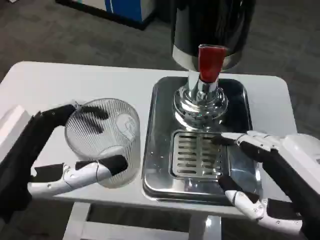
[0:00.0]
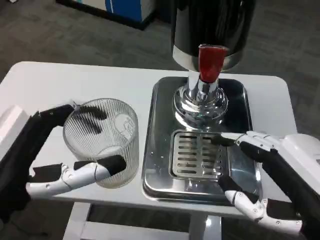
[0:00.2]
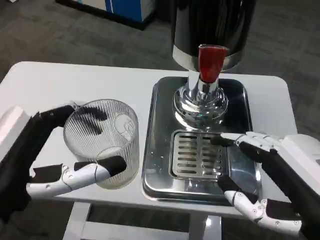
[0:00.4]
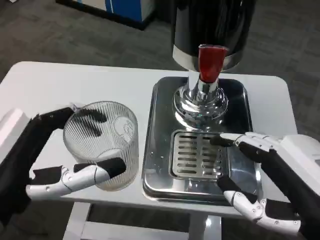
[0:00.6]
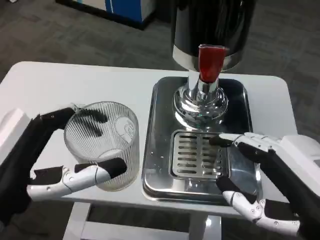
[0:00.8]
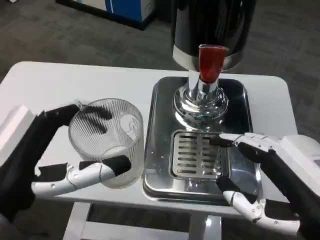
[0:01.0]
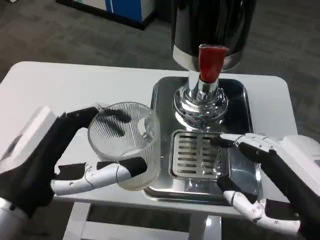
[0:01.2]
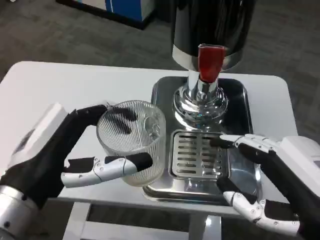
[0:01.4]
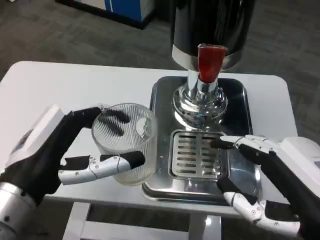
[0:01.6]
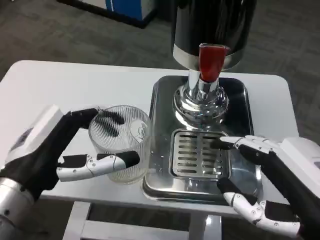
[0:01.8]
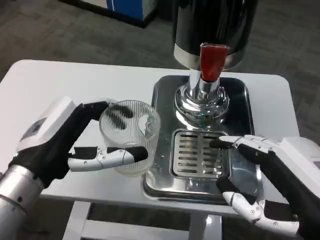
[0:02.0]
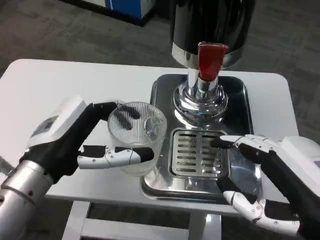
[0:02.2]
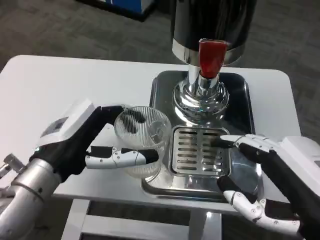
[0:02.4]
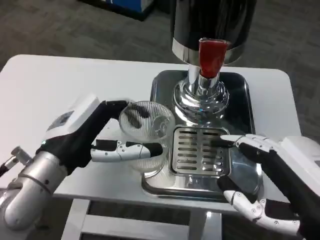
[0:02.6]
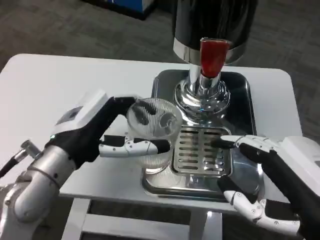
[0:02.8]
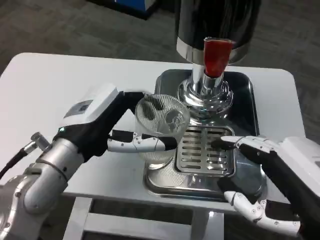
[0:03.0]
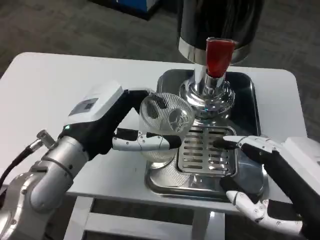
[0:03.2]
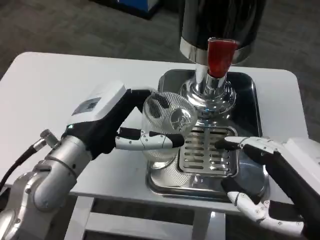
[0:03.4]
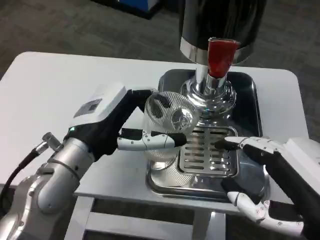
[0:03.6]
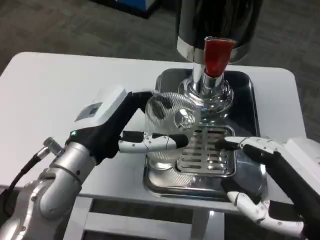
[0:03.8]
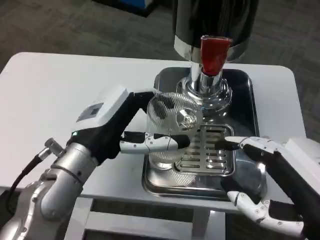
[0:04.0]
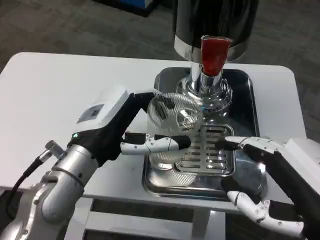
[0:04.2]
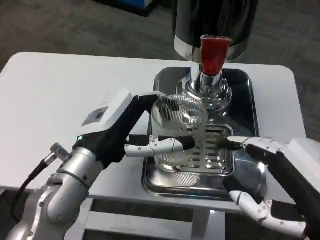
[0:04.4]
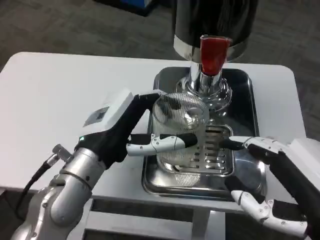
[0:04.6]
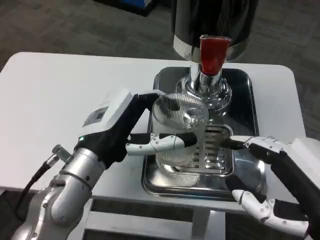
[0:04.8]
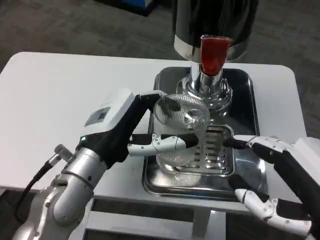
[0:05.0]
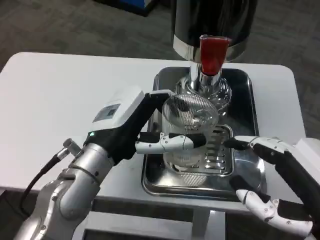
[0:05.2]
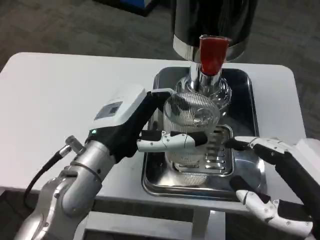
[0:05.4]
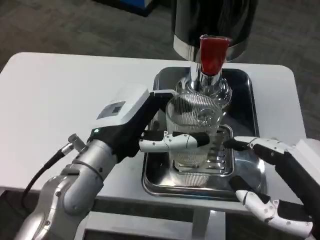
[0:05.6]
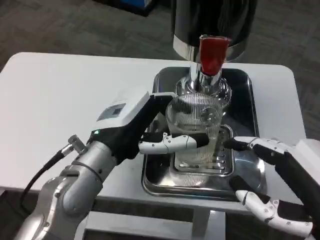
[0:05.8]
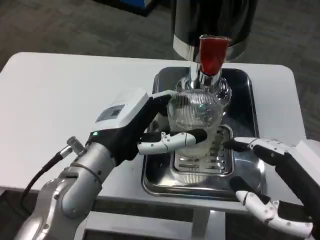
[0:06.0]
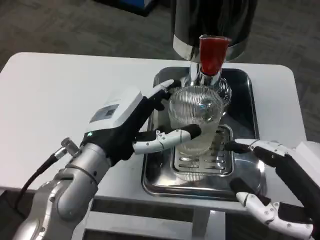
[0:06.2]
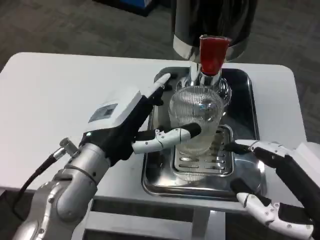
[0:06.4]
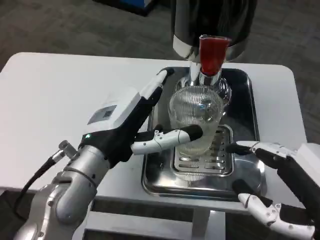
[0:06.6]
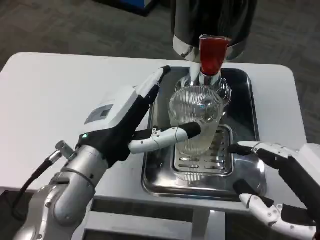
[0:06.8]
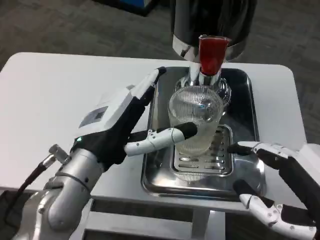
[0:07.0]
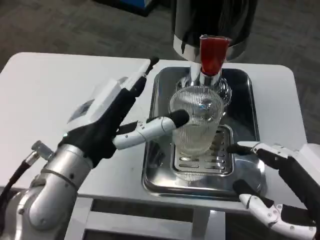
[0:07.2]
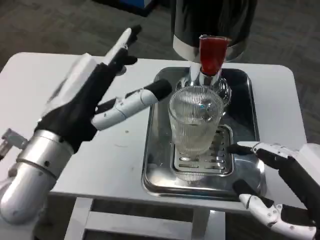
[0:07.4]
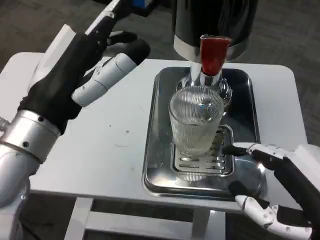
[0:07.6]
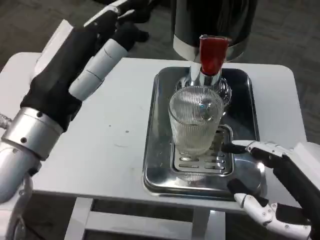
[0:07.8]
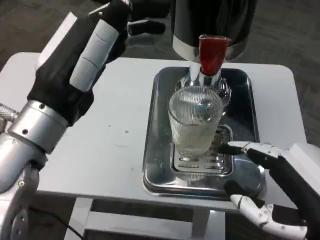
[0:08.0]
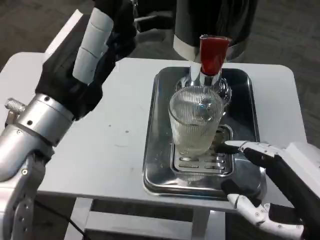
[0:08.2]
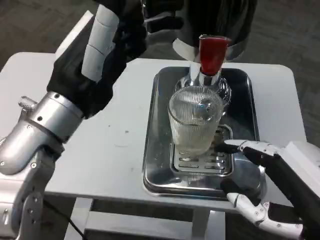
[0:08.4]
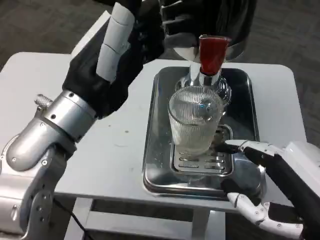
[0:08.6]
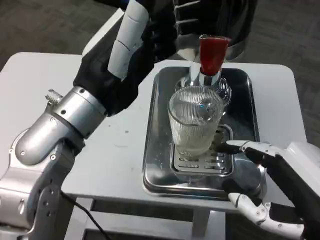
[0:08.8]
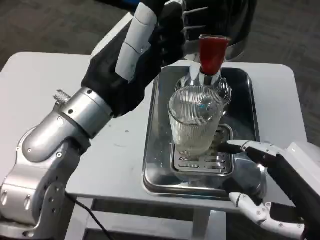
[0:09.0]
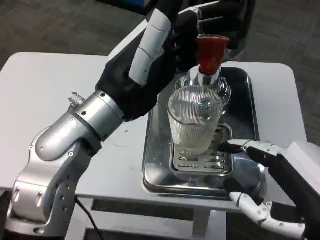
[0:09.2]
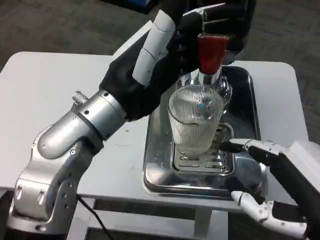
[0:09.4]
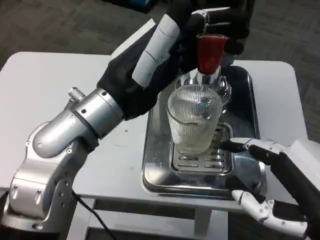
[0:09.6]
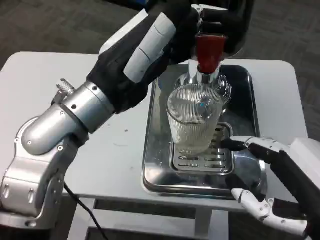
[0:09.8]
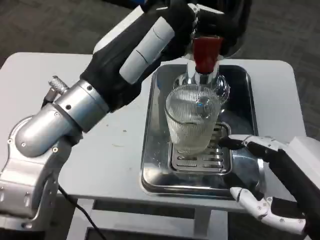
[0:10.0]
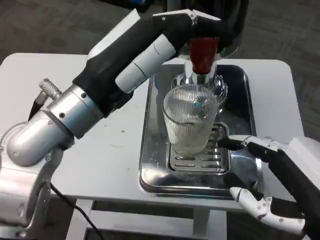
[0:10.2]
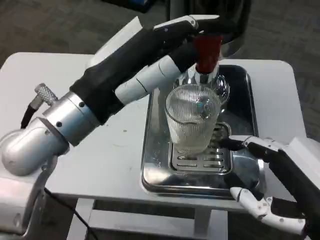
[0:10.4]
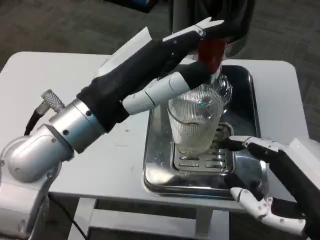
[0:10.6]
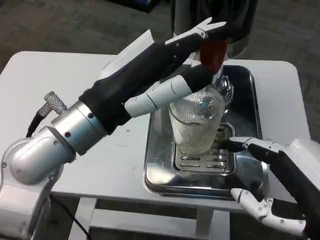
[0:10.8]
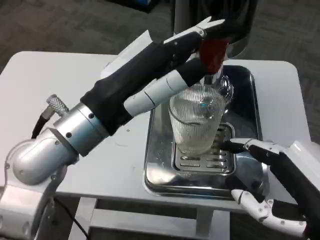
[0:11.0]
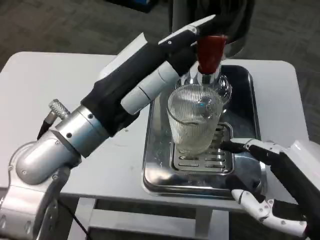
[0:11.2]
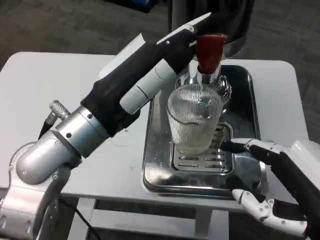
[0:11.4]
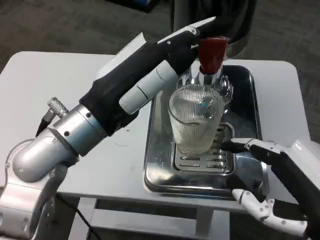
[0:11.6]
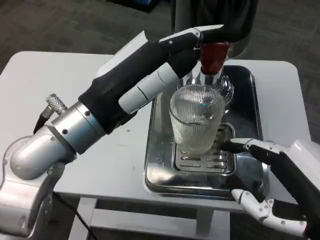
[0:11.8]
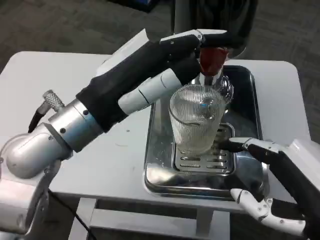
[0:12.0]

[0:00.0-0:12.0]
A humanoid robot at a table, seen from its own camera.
Task of the whole recording: Grasp the cup under the faucet to collect the drink, then remove the cup.
0:01.6 to 0:03.0: The left hand goes about 10 cm forward.
0:06.0 to 0:07.6: The left hand heads upward, covering some 5 cm.
0:07.6 to 0:09.0: The left hand ends up about 5 cm from where it was.

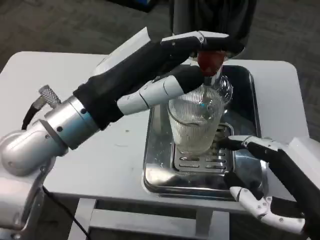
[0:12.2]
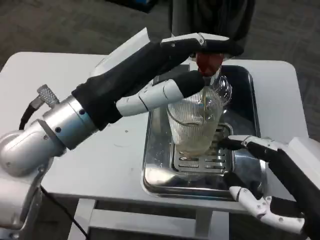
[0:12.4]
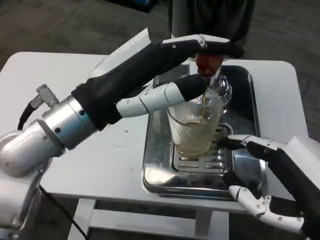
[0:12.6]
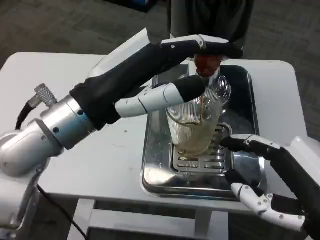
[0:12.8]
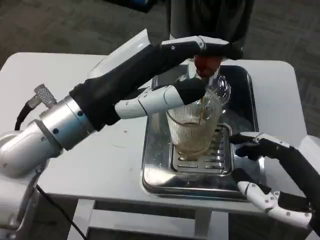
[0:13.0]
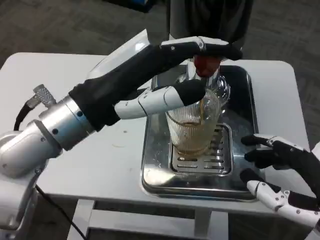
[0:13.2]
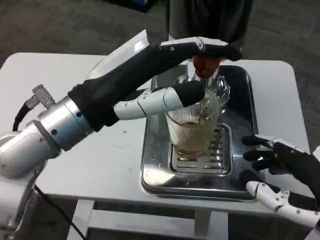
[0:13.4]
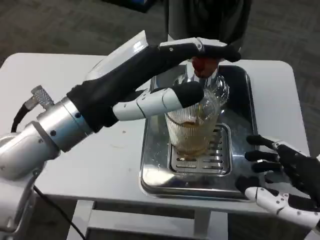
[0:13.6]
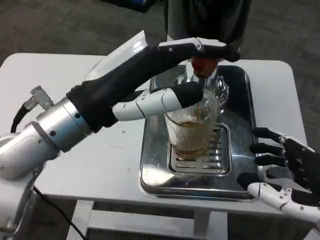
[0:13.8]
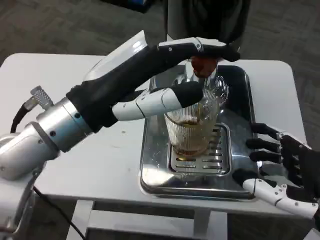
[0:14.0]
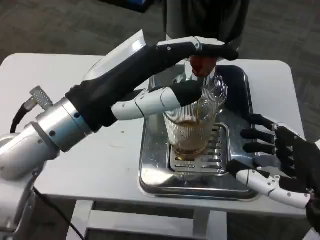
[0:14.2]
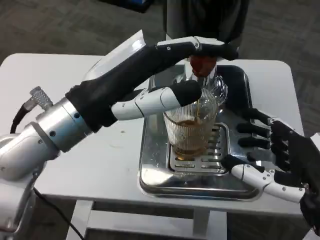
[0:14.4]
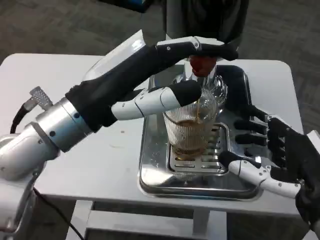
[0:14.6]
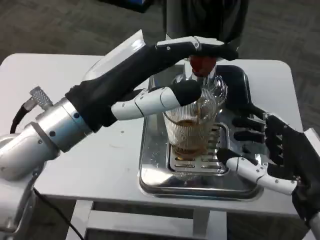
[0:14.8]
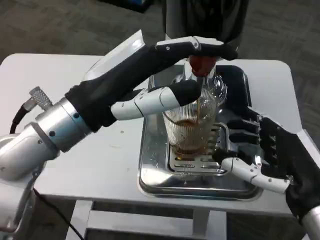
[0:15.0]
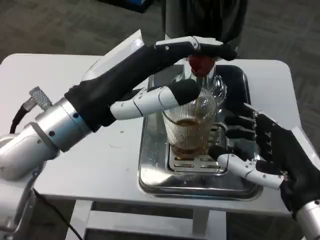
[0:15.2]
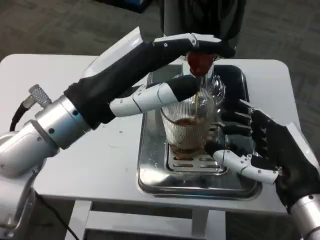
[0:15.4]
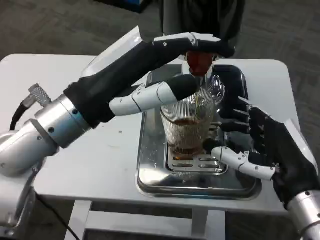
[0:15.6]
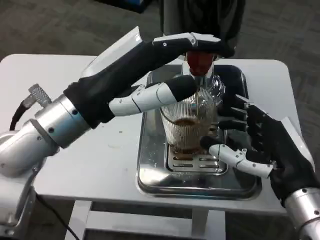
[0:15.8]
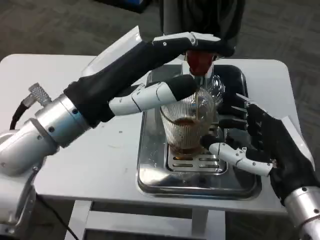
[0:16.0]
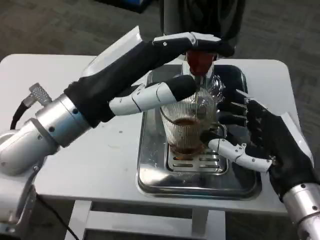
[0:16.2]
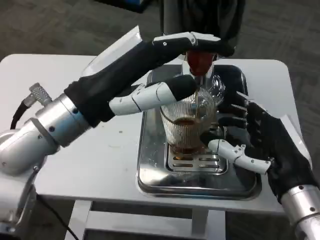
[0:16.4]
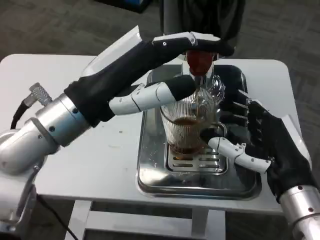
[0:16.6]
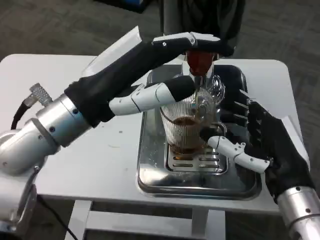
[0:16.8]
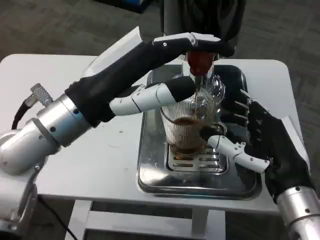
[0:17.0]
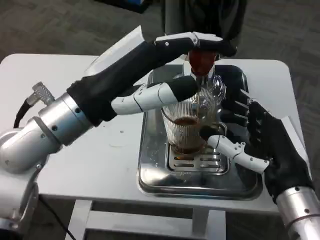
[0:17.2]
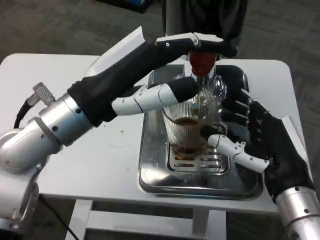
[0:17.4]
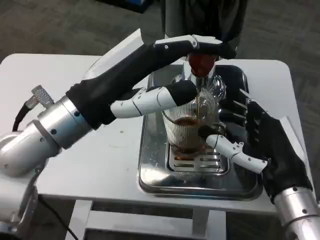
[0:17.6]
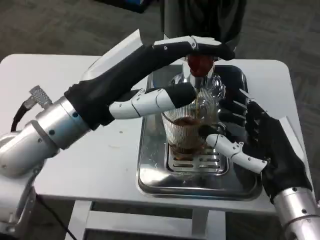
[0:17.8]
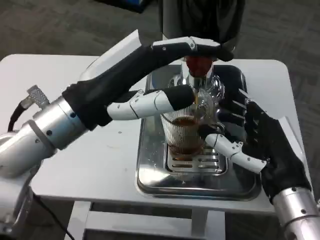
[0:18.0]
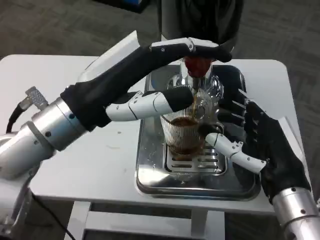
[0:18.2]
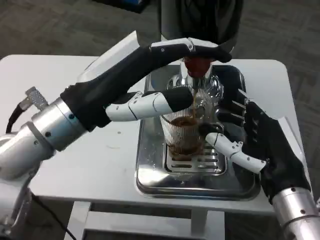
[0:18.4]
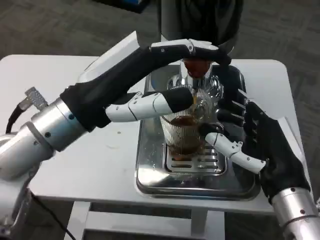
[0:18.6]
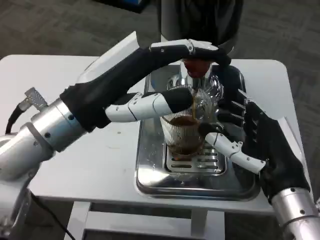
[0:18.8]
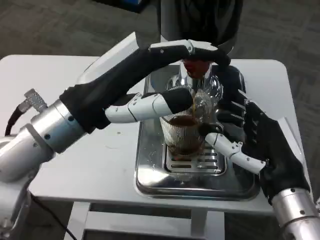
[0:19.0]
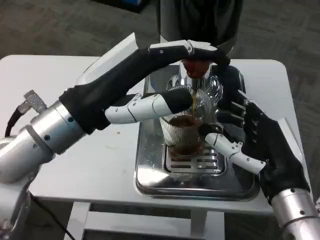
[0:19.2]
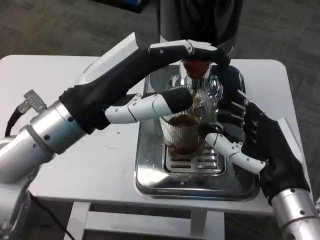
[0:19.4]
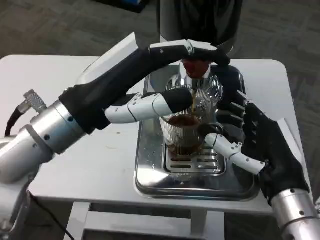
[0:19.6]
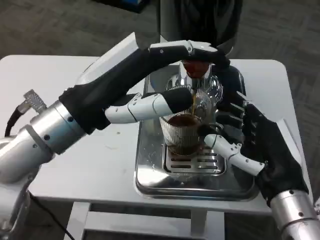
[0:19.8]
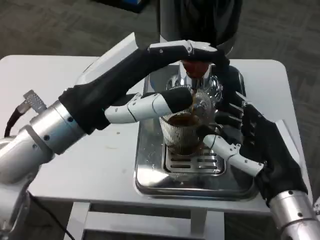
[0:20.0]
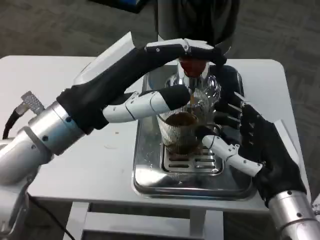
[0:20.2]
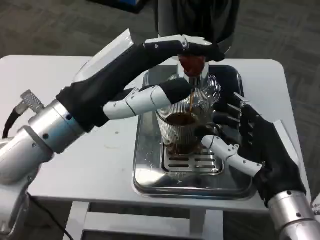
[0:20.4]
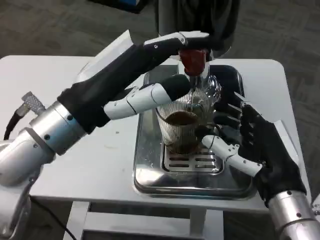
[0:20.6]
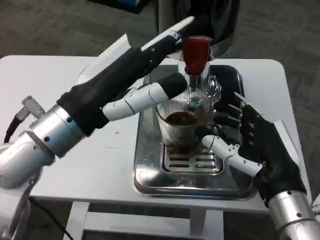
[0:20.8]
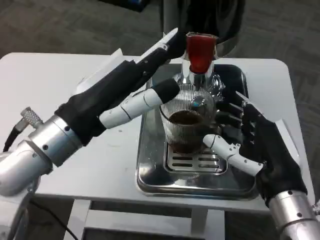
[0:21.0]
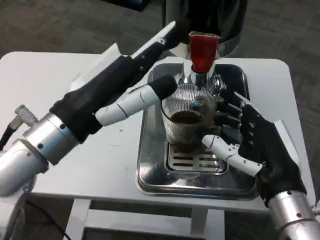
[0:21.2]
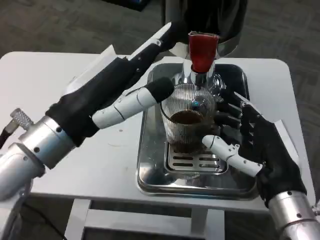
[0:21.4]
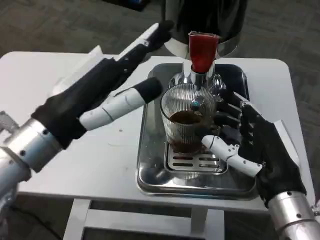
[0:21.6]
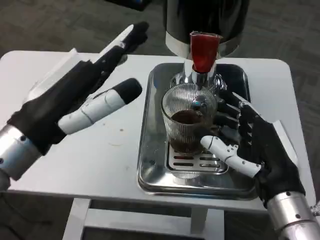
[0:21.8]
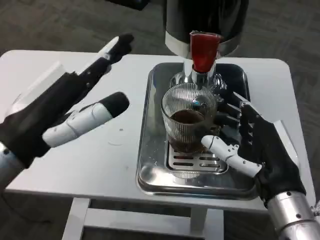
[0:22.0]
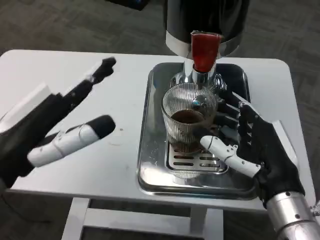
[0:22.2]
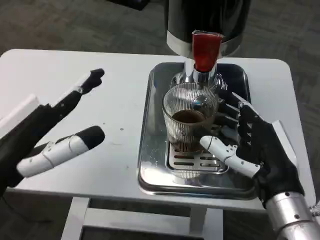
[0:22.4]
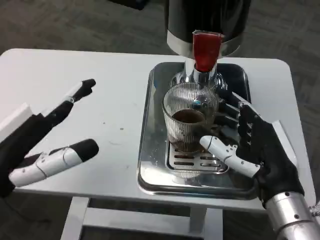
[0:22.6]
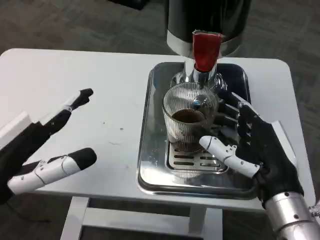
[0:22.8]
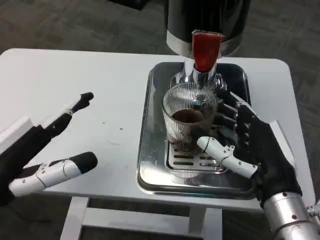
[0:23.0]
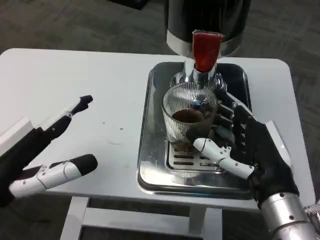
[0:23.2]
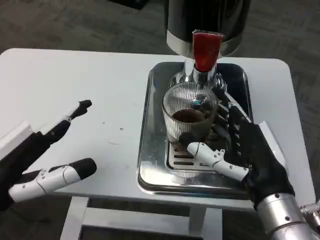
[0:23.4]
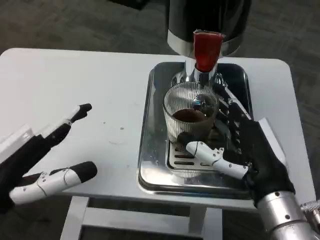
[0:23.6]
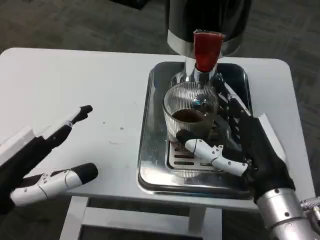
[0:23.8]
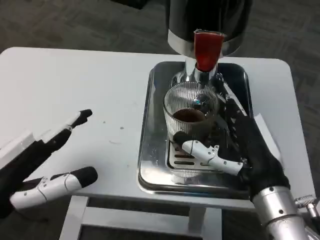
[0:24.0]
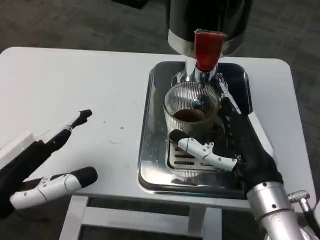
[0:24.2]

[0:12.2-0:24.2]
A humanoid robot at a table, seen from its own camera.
Task of the whole recording: Grasp the cup under the faucet to collect the drink, then remove the cup.
0:13.8 to 0:15.2: The right hand travels forward by approximately 5 cm.
0:18.2 to 0:19.8: Both hands stay about where they are.
0:21.2 to 0:22.6: The left hand moves to the left and backward, about 10 cm.
